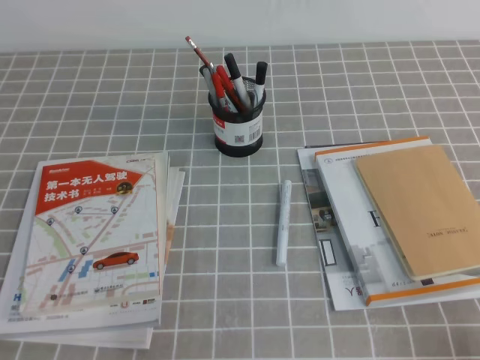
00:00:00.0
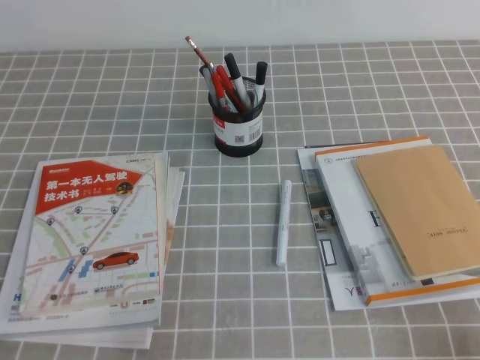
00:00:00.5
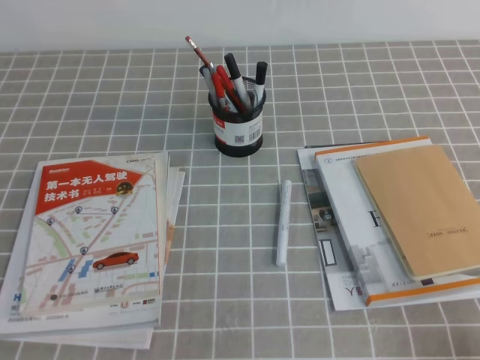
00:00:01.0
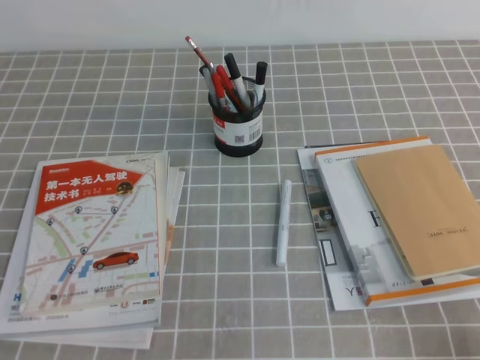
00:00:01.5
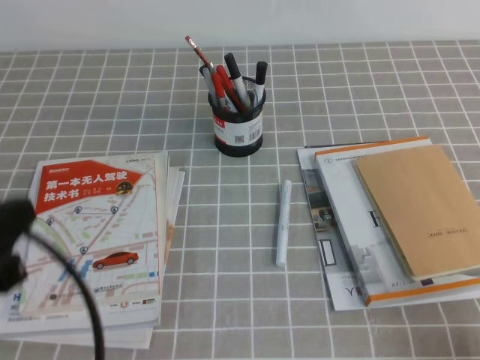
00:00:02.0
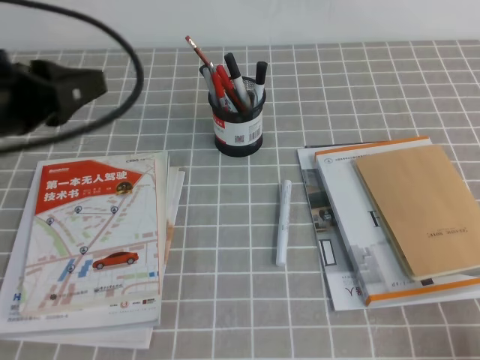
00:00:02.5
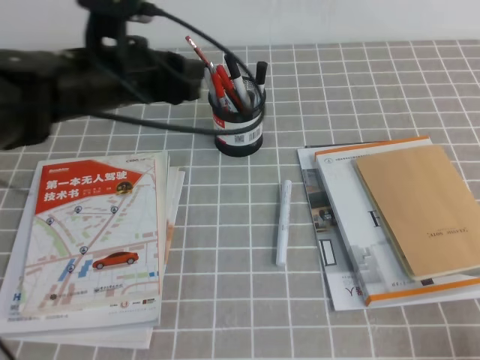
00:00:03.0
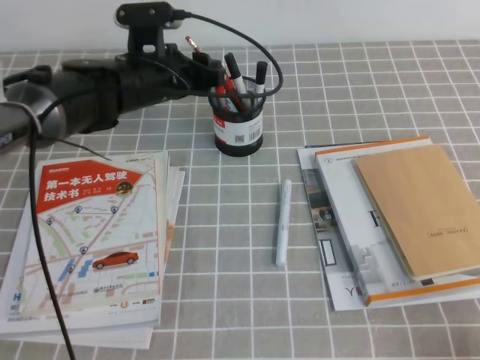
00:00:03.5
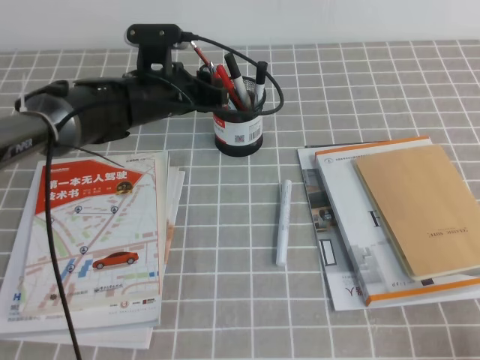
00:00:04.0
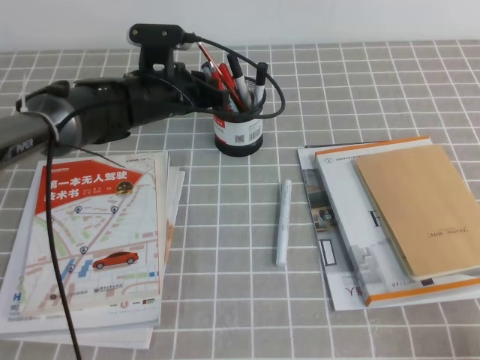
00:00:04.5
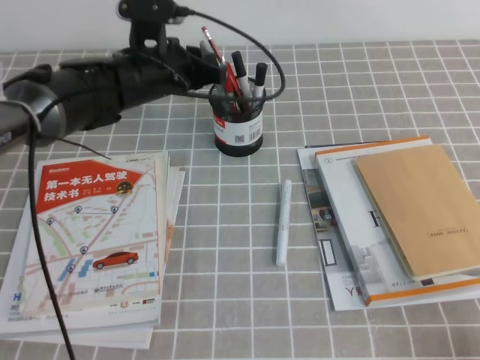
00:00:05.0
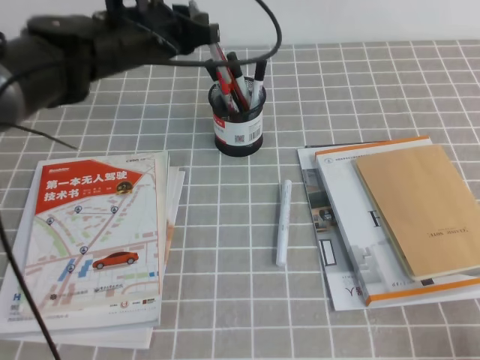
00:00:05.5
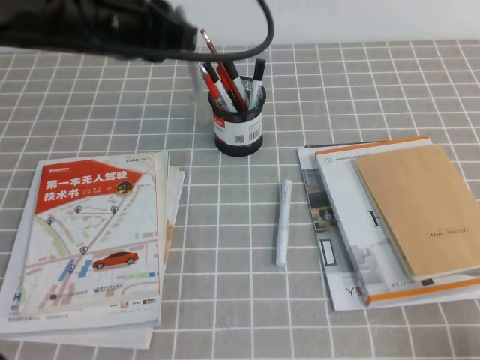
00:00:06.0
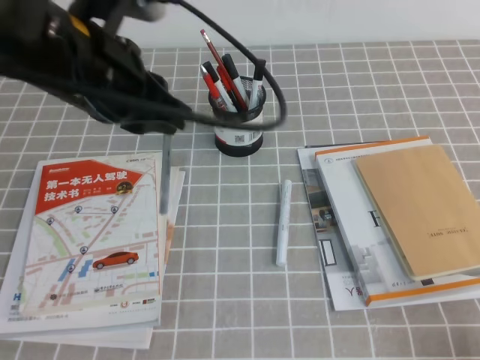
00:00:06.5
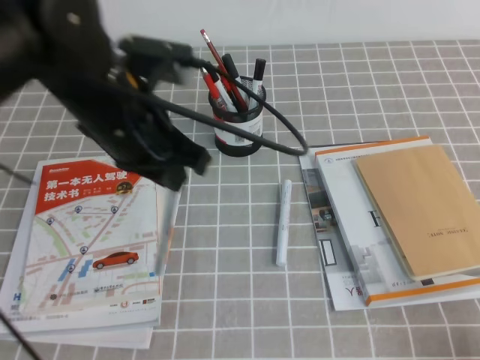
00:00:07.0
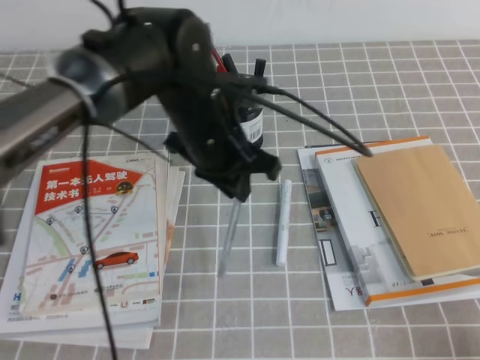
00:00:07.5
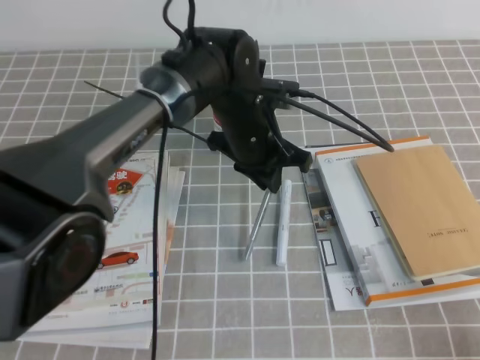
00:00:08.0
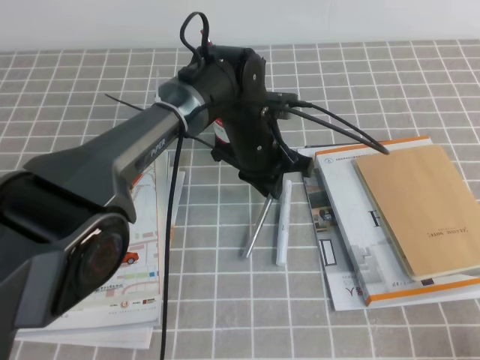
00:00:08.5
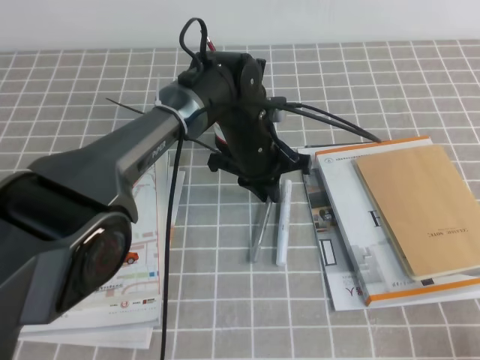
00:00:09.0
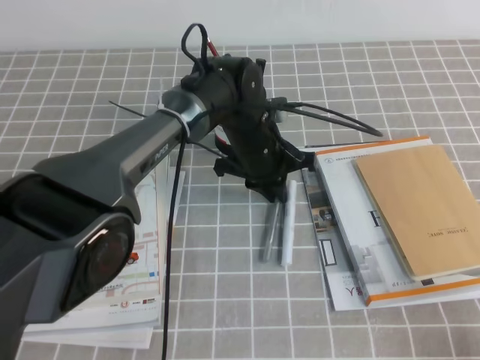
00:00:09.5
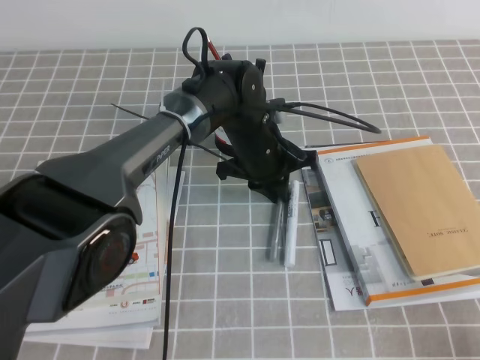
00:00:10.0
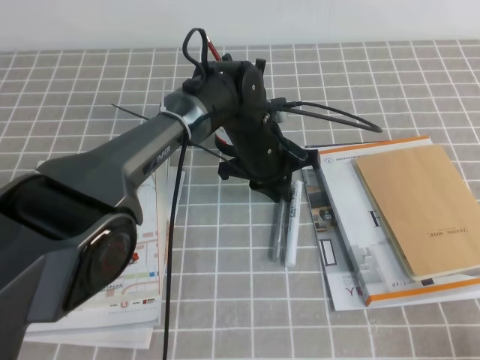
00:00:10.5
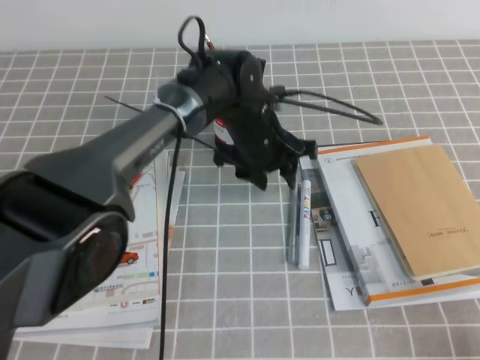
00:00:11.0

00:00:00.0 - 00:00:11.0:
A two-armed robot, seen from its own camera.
00:00:00.0 - 00:00:02.0: The left gripper moves upward, roughly 15 cm.
00:00:02.0 - 00:00:03.5: The left gripper shifts some 35 cm forward and to the right, and opens up.
00:00:03.5 - 00:00:05.5: The left gripper moves upward, some 5 cm, and closes its fingers.
00:00:05.5 - 00:00:07.5: The left gripper shifts roughly 10 cm backward and to the right.
00:00:07.5 - 00:00:09.0: The left gripper goes roughly 15 cm downward, forward and to the right.
00:00:09.0 - 00:00:11.0: The left gripper opens up.

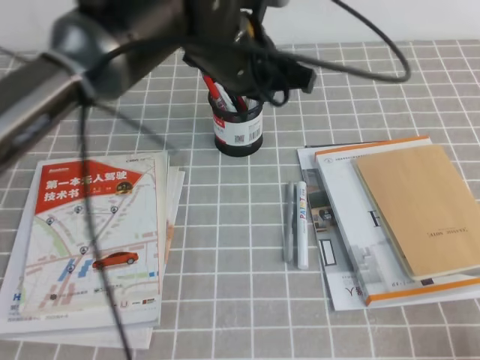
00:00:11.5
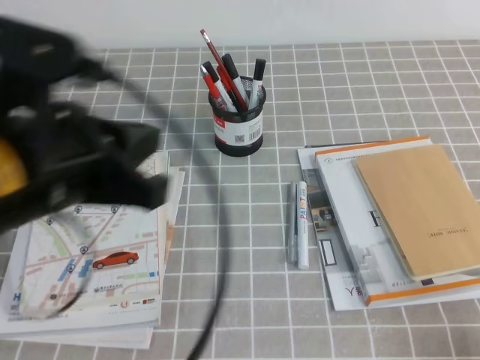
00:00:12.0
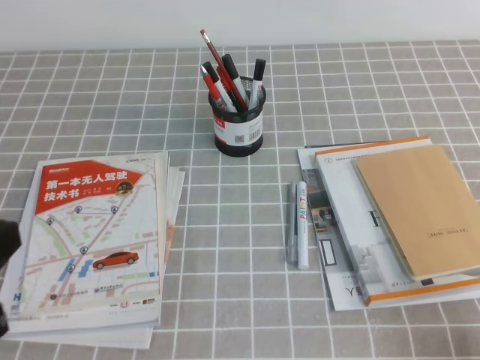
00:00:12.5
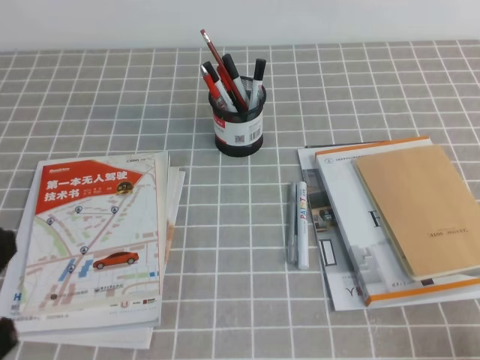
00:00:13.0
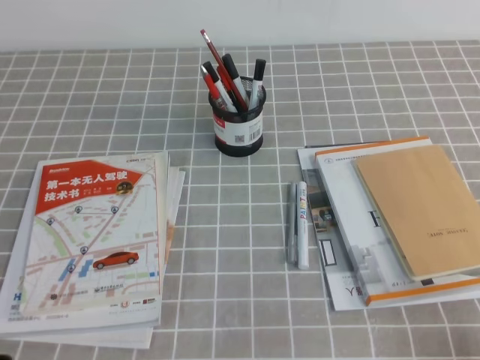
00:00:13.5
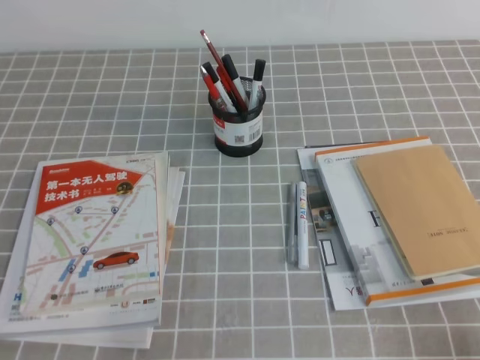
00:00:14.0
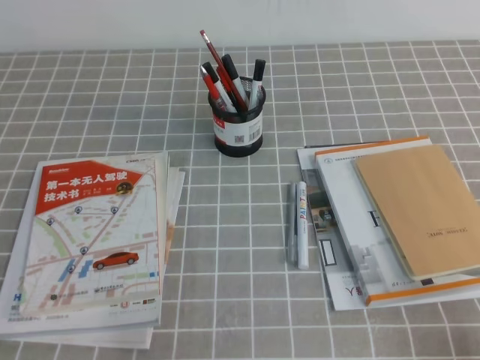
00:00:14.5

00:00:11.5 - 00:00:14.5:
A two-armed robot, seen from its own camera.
Step, 00:00:11.5 - 00:00:14.5: Pick up the pen from the pen holder.
00:00:11.5 - 00:00:13.0: The left gripper moves backward and to the left, about 35 cm.
00:00:13.0 - 00:00:14.5: The left gripper is displaced downward by about 15 cm.

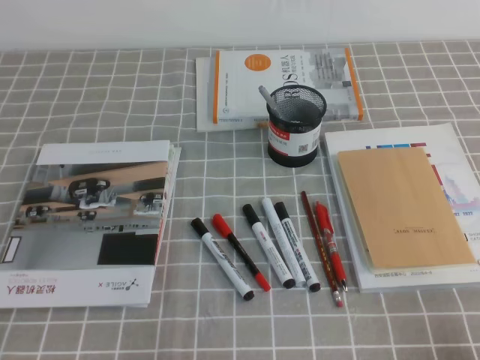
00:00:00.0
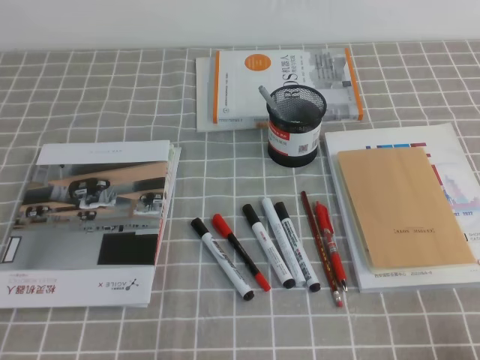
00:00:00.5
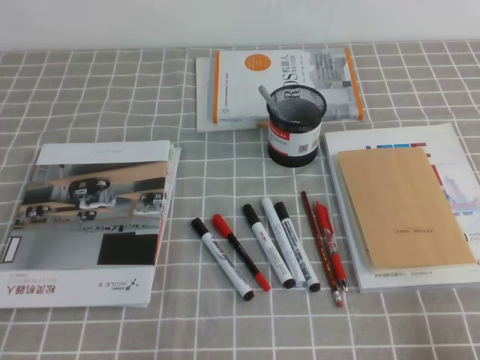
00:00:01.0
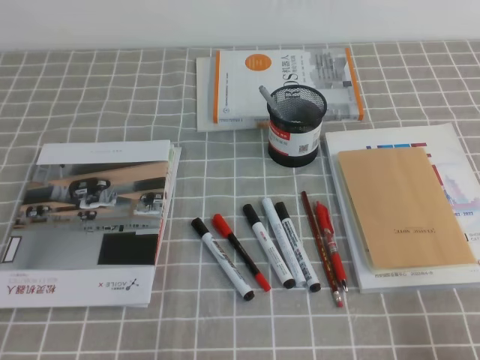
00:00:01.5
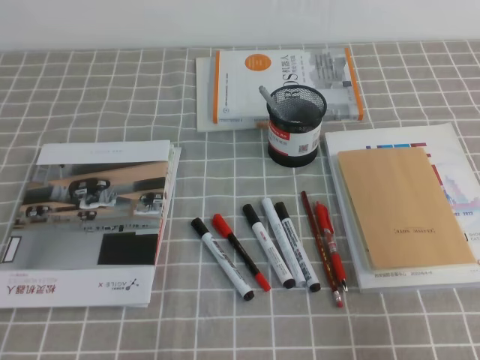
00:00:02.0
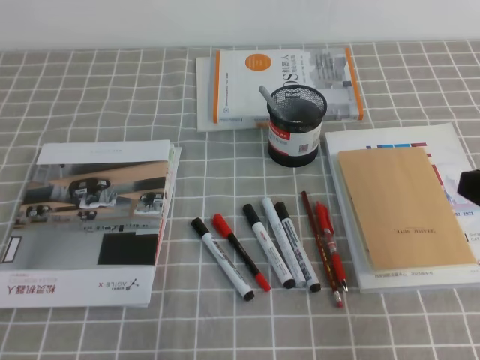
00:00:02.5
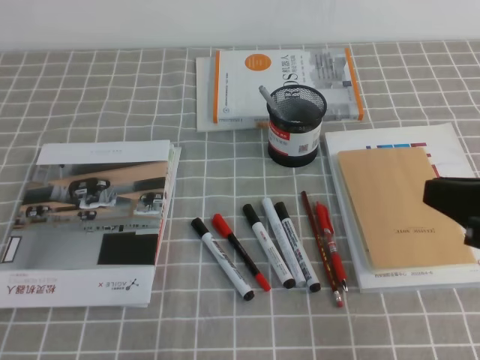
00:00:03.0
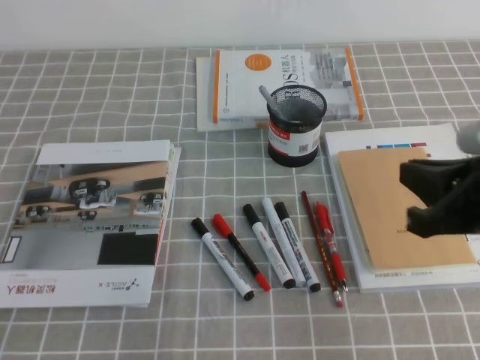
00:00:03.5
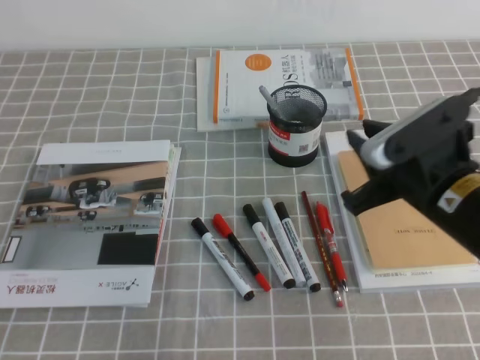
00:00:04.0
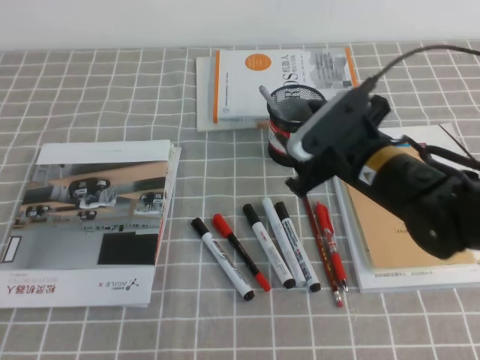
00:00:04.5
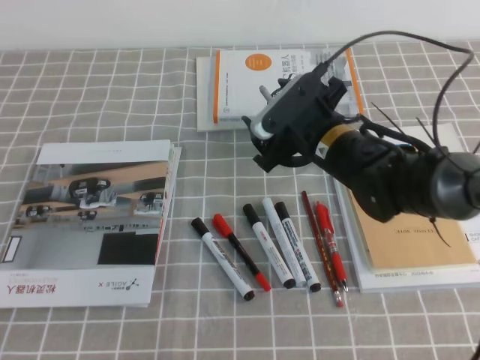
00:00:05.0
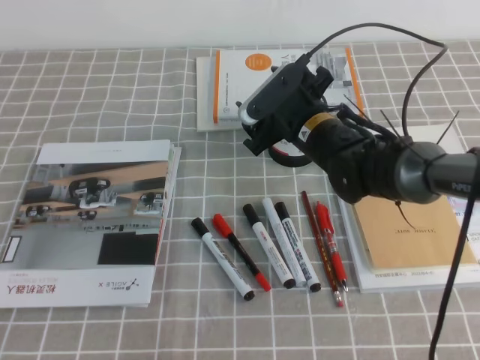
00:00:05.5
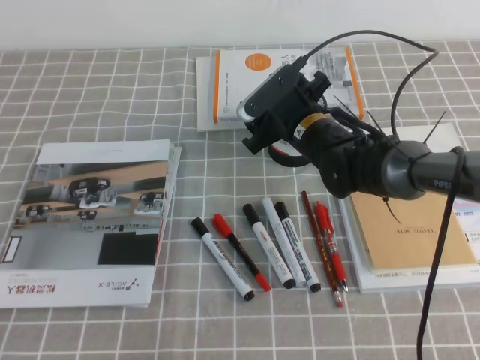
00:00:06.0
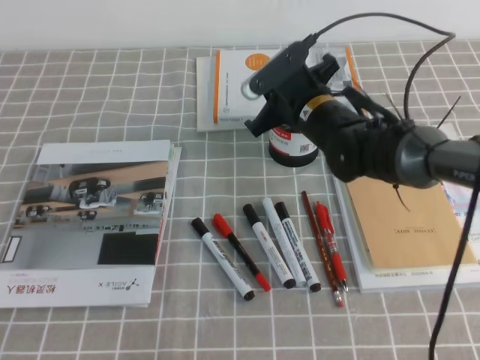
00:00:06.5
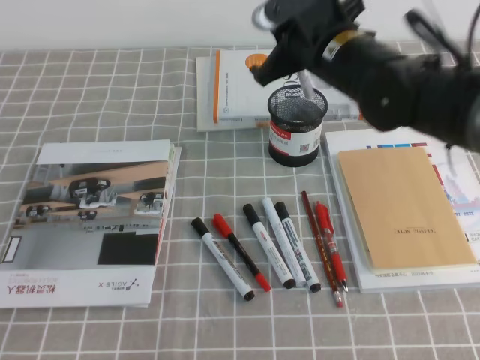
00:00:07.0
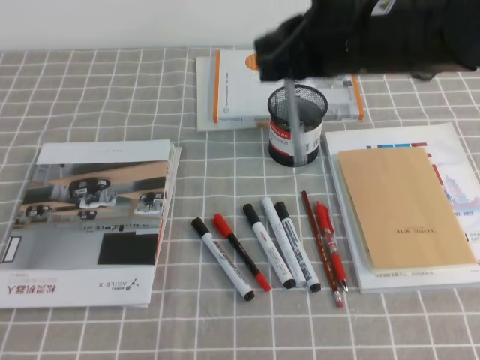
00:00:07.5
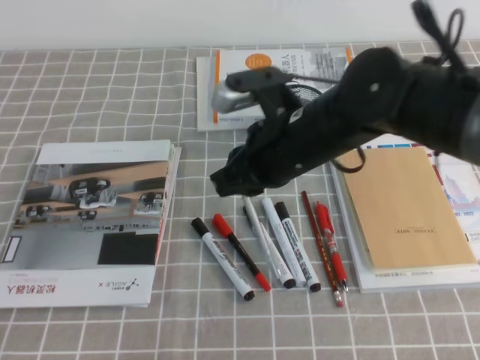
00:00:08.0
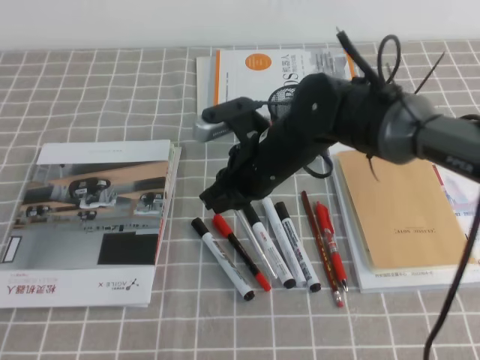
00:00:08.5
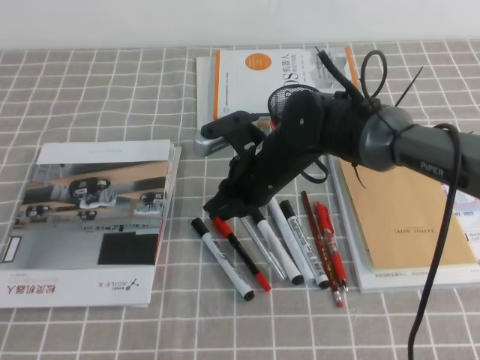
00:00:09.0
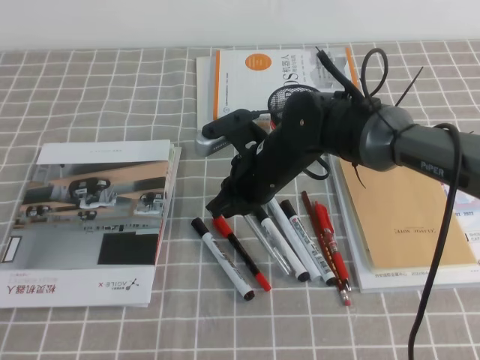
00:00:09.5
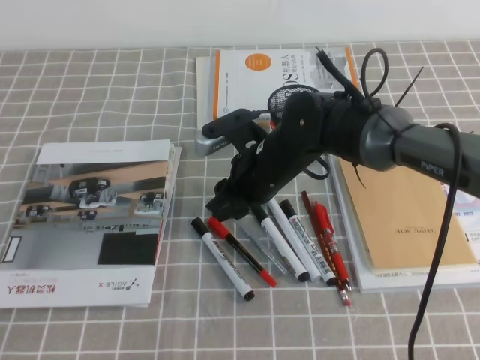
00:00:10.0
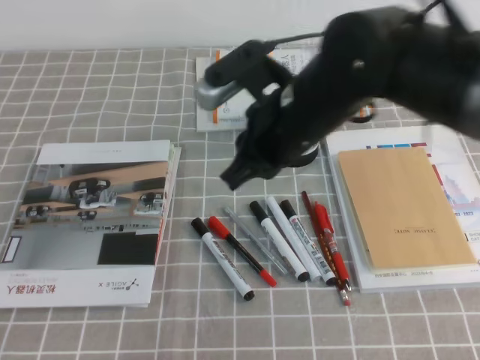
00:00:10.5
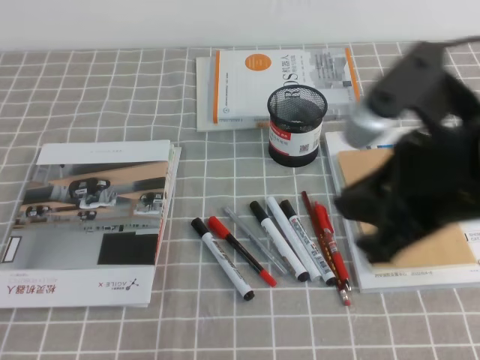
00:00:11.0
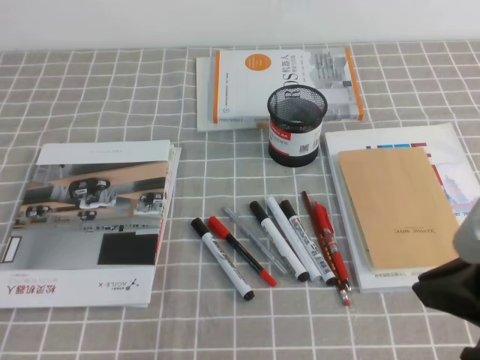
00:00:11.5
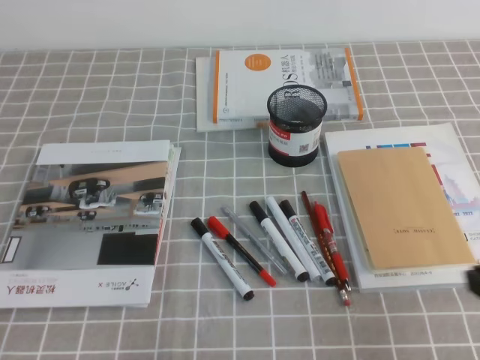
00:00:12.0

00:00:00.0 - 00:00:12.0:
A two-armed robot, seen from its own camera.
Step, 00:00:00.0 - 00:00:03.5: Pick up the pen with the right gripper.
Step, 00:00:04.0 - 00:00:06.0: Place the pen on the table with the right gripper.
00:00:00.0 - 00:00:02.0: The right gripper is displaced upward by about 10 cm.
00:00:02.0 - 00:00:04.0: The right gripper heads forward and to the left, covering approximately 20 cm.
00:00:04.0 - 00:00:06.0: The right gripper heads forward, to the left and downward, covering about 20 cm, and opens its fingers.
00:00:06.0 - 00:00:08.0: The right gripper goes about 15 cm backward and upward, and closes.
00:00:08.0 - 00:00:10.0: The right gripper is displaced downward by some 10 cm, and opens up.
00:00:10.0 - 00:00:12.0: The right gripper goes roughly 35 cm backward and to the right, and closes its fingers.
